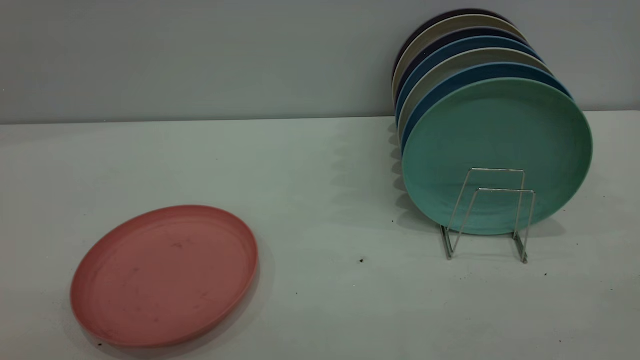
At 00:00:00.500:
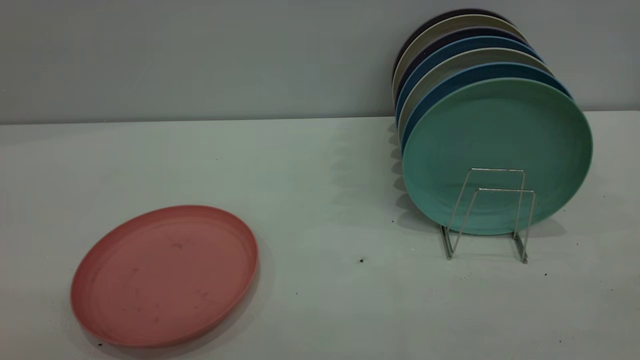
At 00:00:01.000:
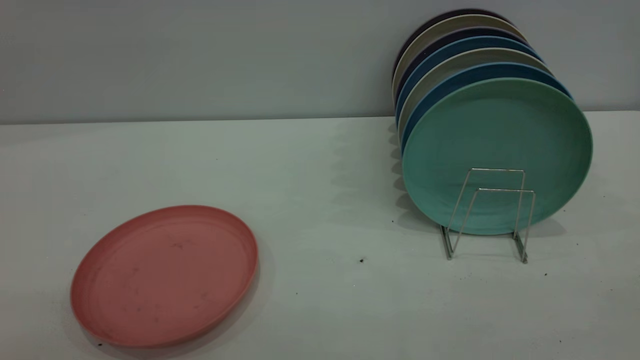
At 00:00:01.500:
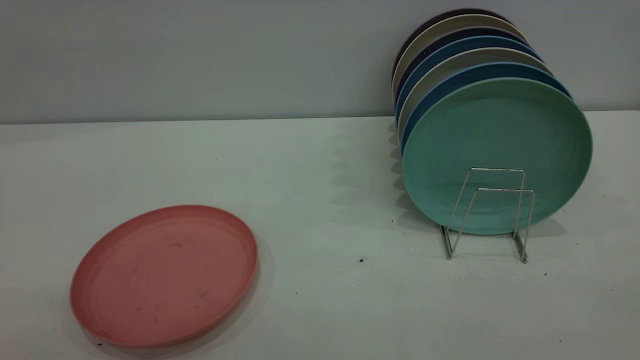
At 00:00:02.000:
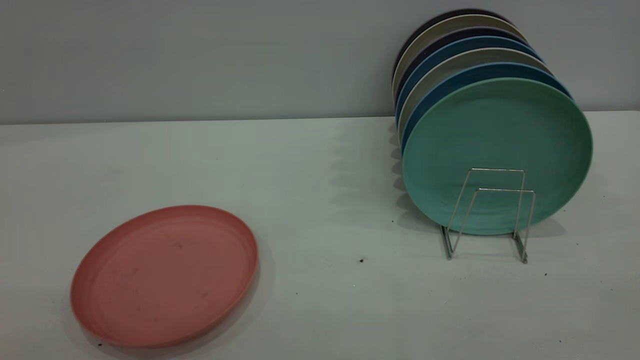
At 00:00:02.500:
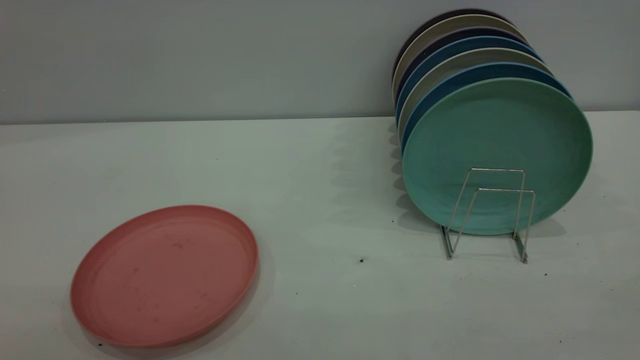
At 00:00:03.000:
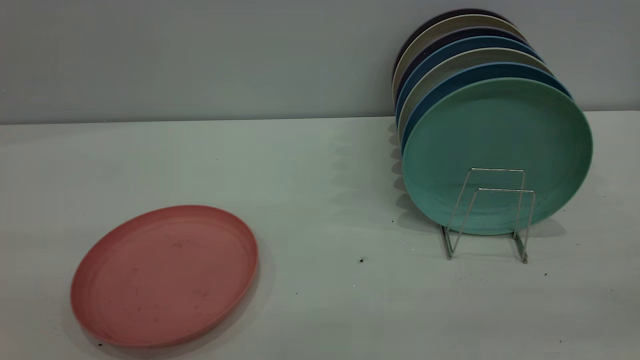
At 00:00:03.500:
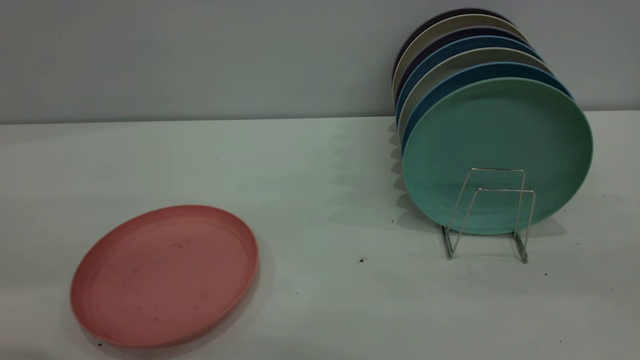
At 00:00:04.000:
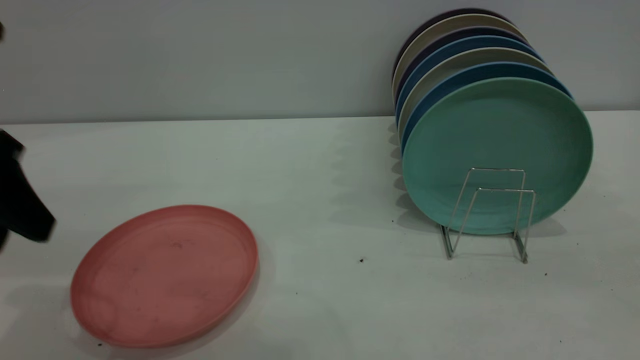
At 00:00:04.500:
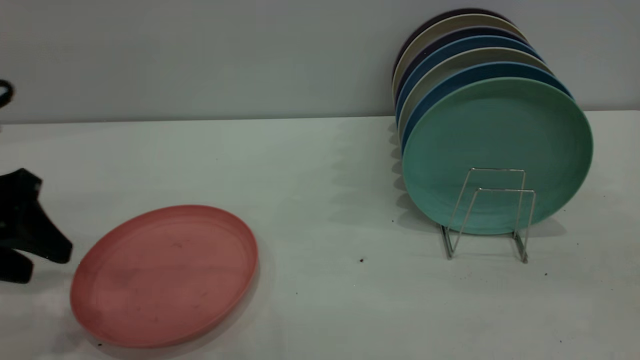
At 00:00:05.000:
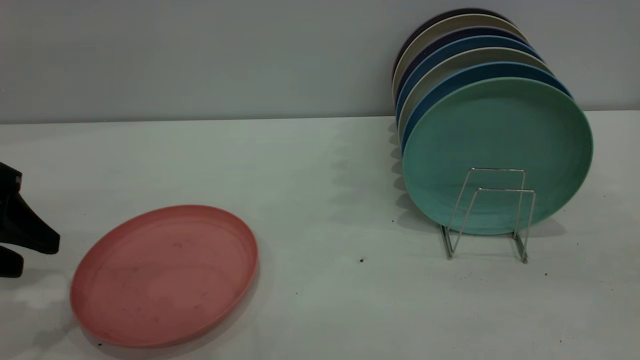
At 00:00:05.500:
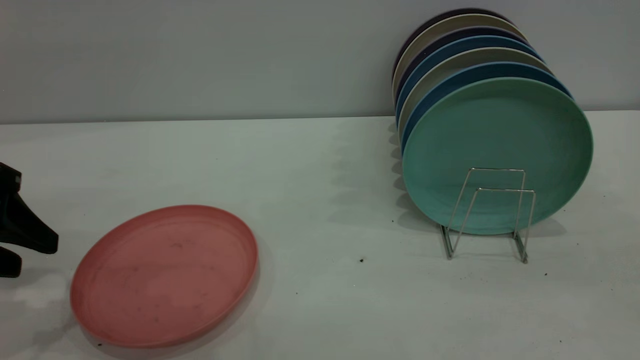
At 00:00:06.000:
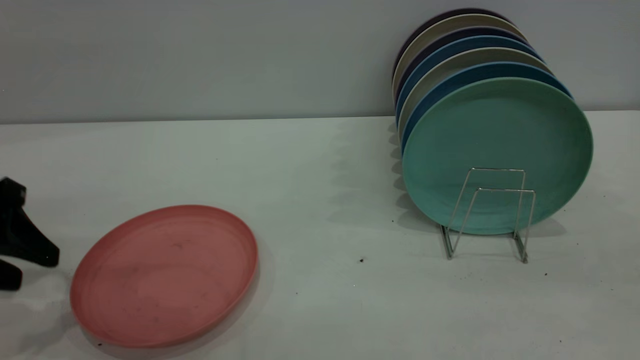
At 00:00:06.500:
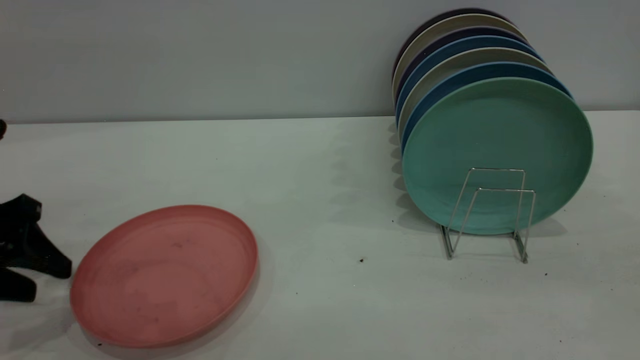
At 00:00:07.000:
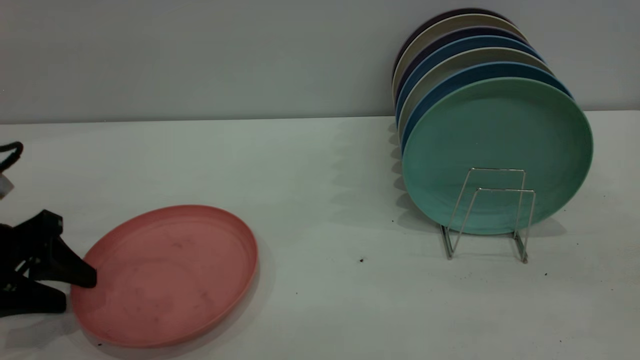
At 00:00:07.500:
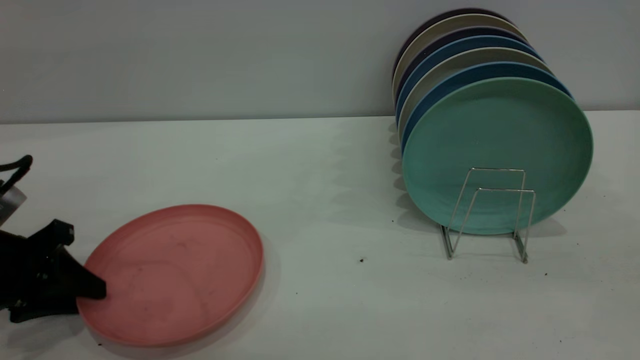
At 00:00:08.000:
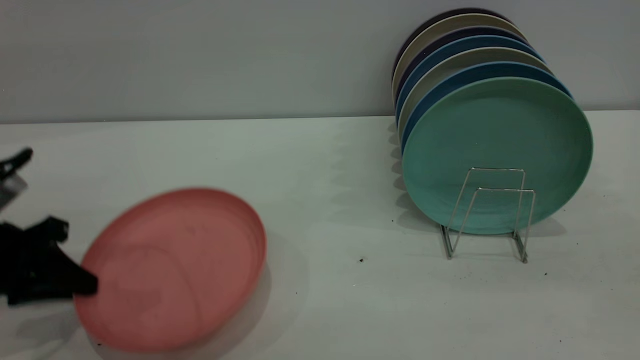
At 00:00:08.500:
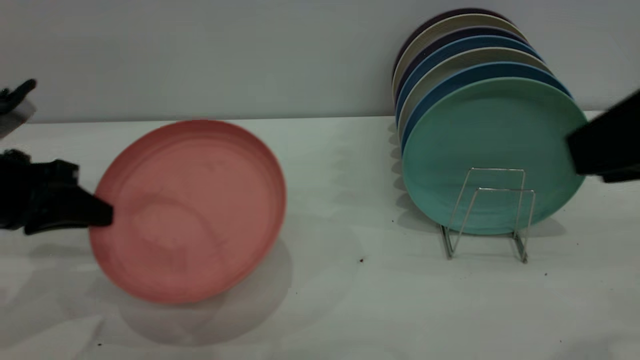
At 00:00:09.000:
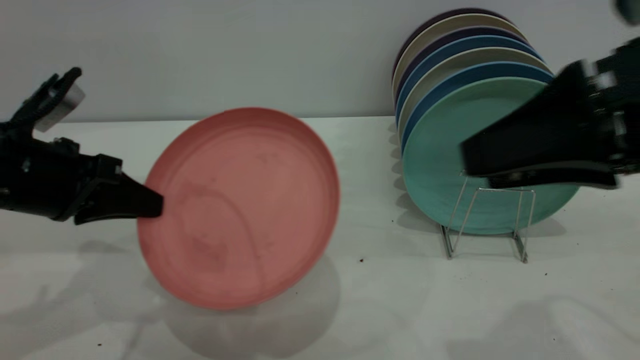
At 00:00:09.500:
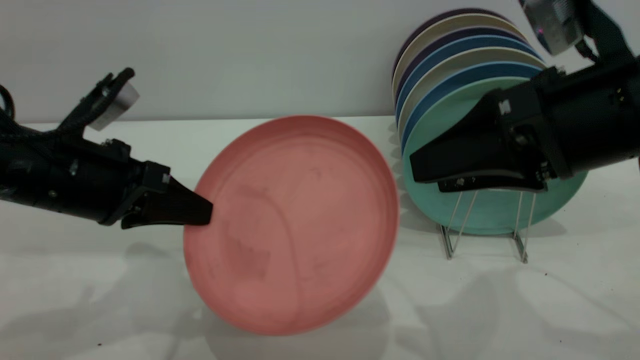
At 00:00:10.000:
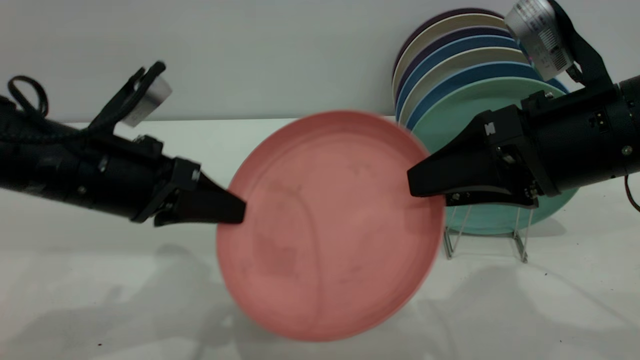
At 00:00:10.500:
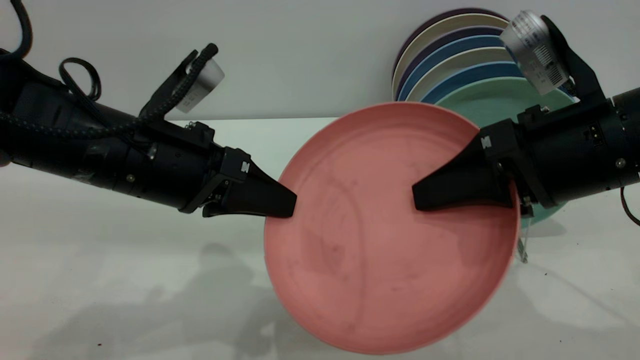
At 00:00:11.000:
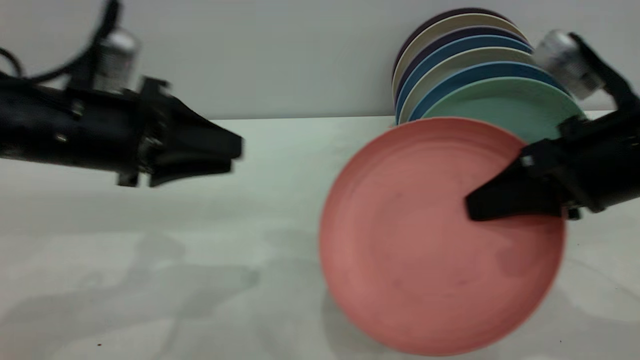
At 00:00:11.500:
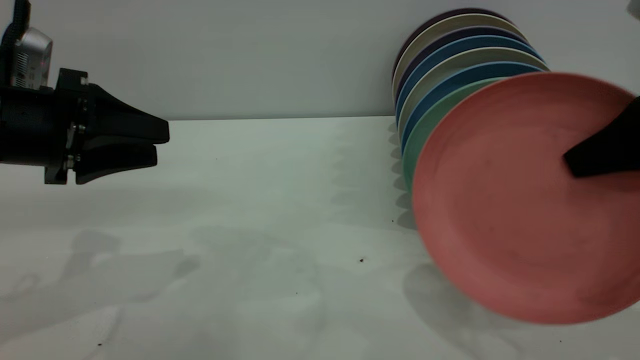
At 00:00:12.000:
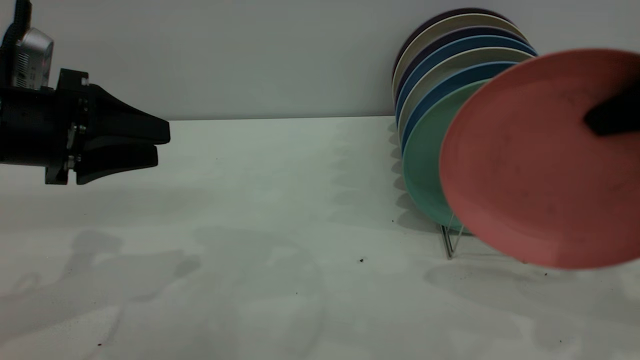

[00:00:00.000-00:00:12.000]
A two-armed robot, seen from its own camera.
Task of the whole recording: put the plate on the plate rack.
Step, 00:00:00.000 to 00:00:07.500: Pick up the plate with the left gripper.
Step, 00:00:08.000 to 00:00:10.500: Pass the plate from the left gripper to the right gripper.
00:00:00.000 to 00:00:02.000: Both grippers stay about where they are.
00:00:02.000 to 00:00:04.000: The left gripper moves forward and downward, roughly 30 cm.
00:00:04.000 to 00:00:06.000: The left gripper shifts about 10 cm downward and to the left.
00:00:06.000 to 00:00:08.000: The left gripper travels downward by some 5 cm, and closes.
00:00:08.000 to 00:00:10.000: The right gripper shifts about 20 cm forward, downward and to the left, while the left gripper shifts some 15 cm to the right and upward.
00:00:10.000 to 00:00:12.000: The right gripper heads to the right and upward, covering some 10 cm, and closes its fingers; the left gripper travels to the left by approximately 10 cm, and opens up.

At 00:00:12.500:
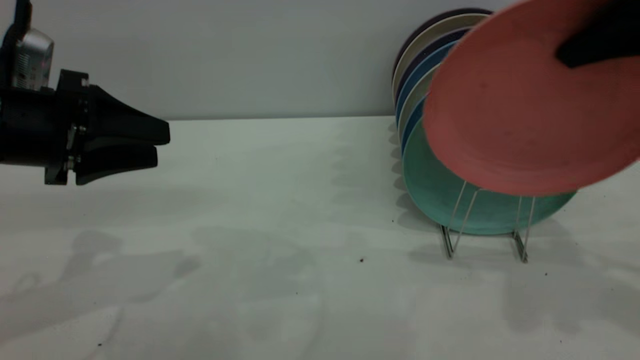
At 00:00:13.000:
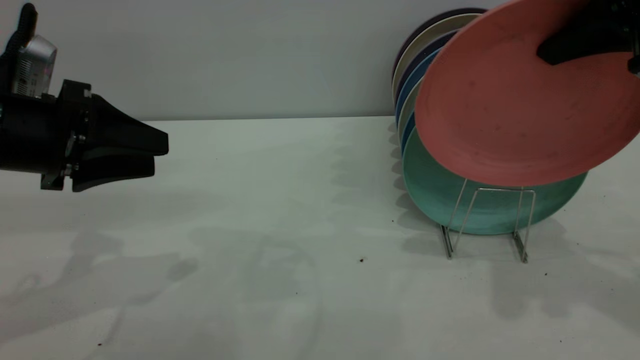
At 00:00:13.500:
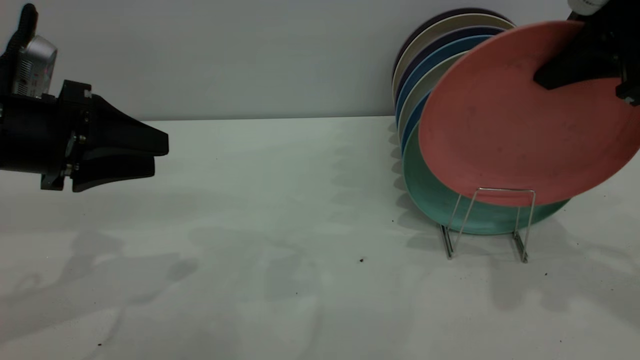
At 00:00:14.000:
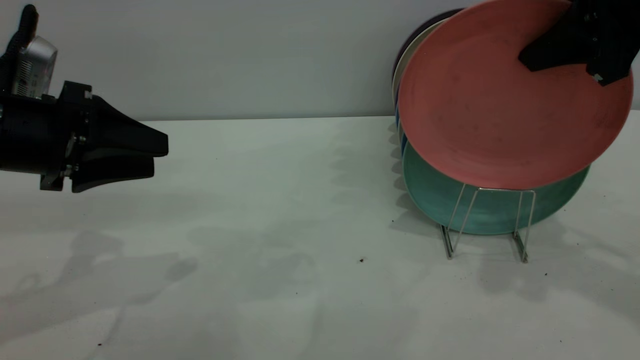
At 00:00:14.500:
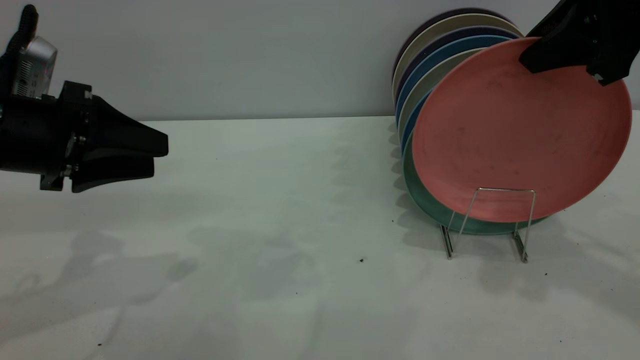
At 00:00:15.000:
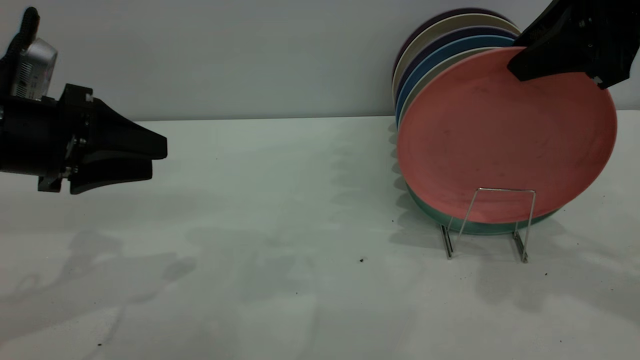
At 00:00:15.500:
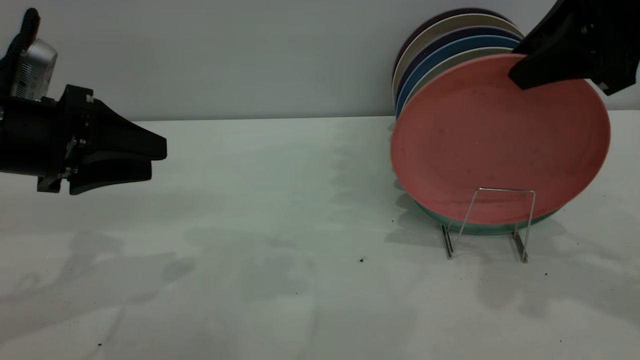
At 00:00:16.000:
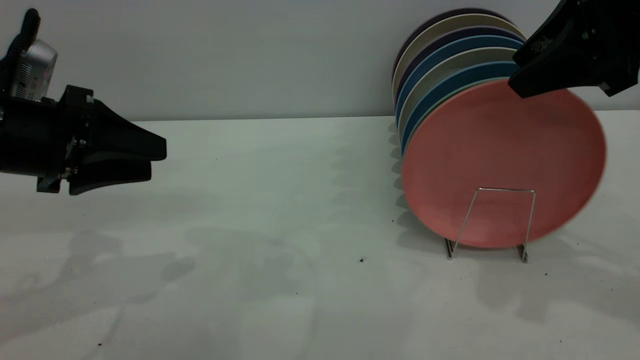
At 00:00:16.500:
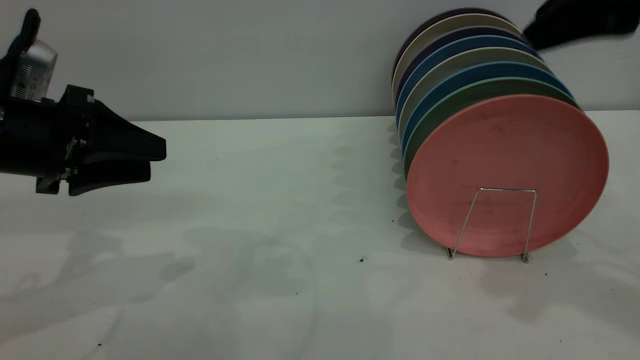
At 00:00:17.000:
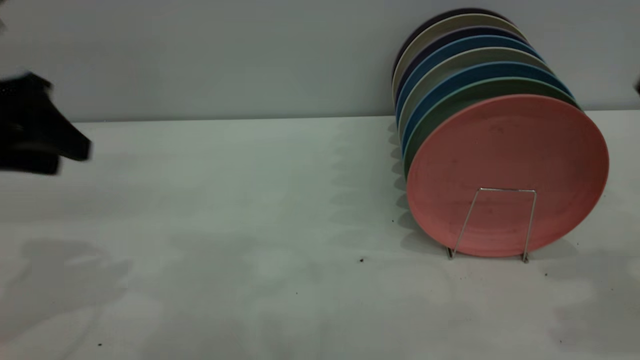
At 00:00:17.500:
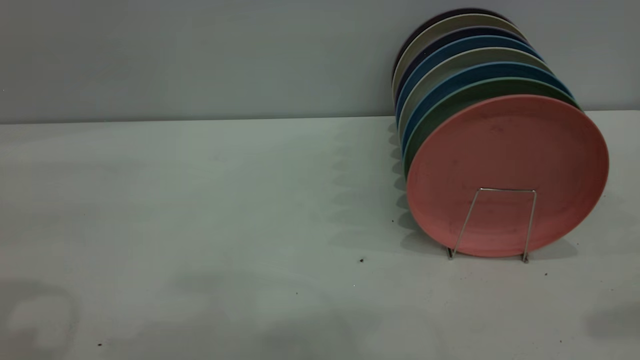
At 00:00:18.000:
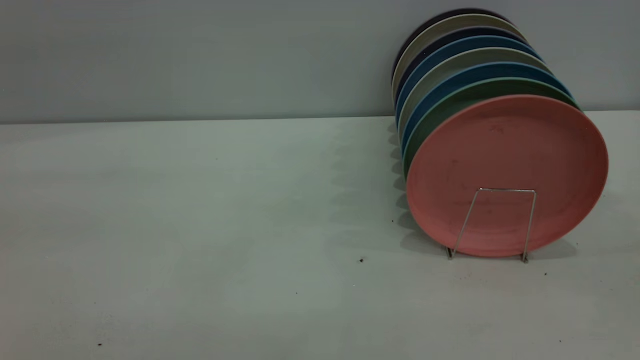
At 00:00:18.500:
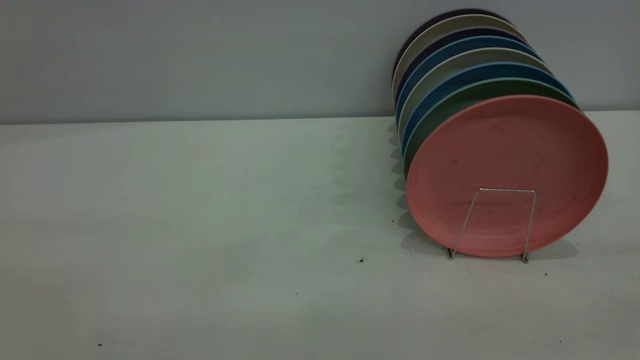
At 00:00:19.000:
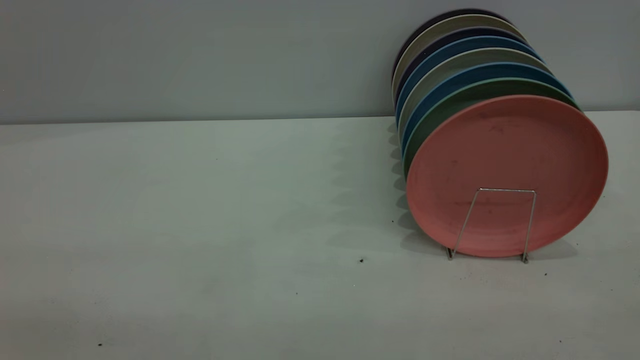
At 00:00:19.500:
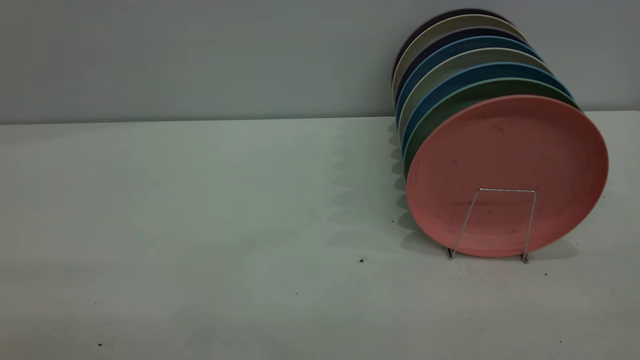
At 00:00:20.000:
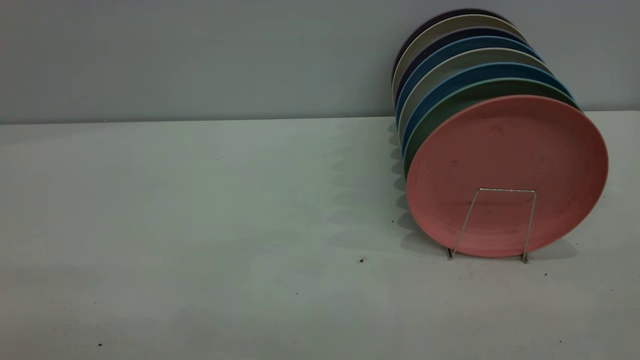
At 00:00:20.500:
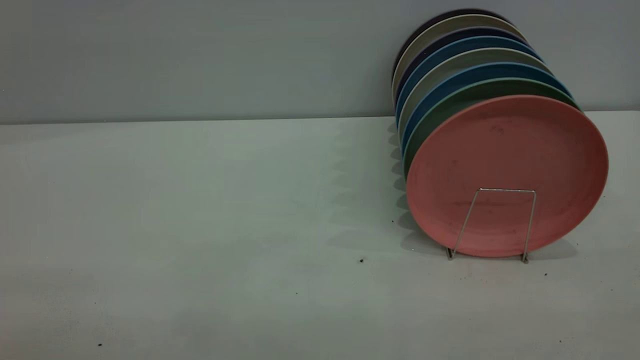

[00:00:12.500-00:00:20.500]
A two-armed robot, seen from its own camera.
Task of the whole recording: put the plate on the plate rack.
Step, 00:00:12.500 to 00:00:16.500: Place the plate on the shelf.
00:00:12.500 to 00:00:14.500: The grippers make only small movements.
00:00:14.500 to 00:00:16.500: The right gripper changes place by roughly 5 cm, and opens.
00:00:16.500 to 00:00:18.500: The right gripper is displaced backward by some 30 cm. Meanwhile the left gripper goes about 30 cm backward and upward.
